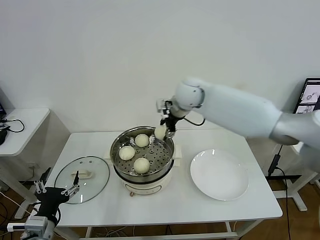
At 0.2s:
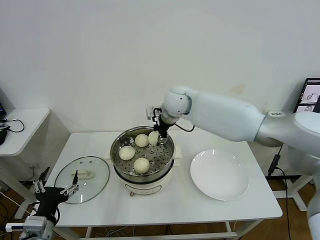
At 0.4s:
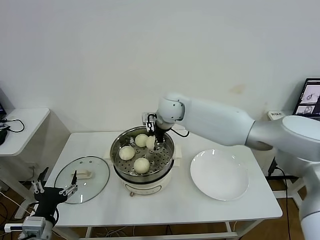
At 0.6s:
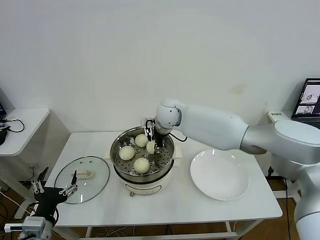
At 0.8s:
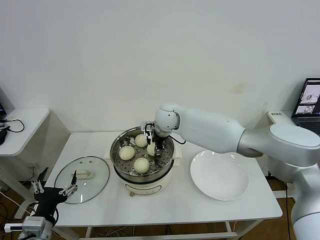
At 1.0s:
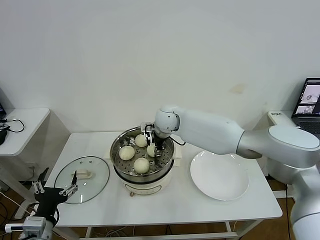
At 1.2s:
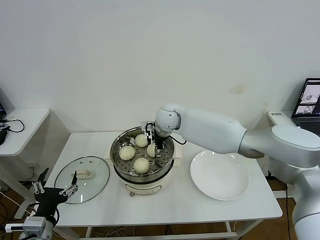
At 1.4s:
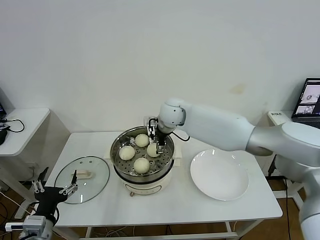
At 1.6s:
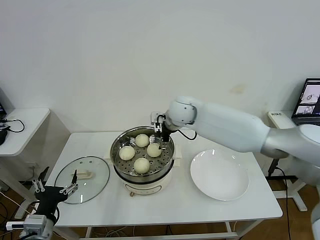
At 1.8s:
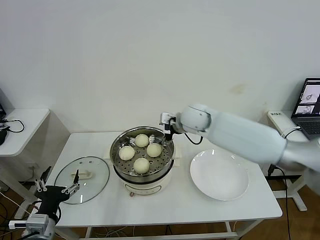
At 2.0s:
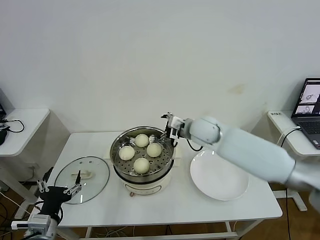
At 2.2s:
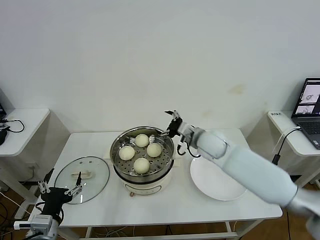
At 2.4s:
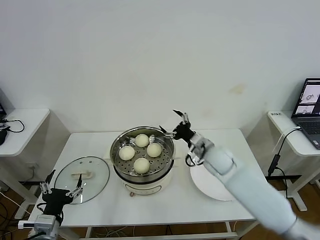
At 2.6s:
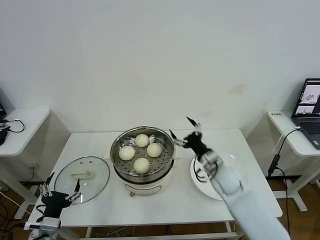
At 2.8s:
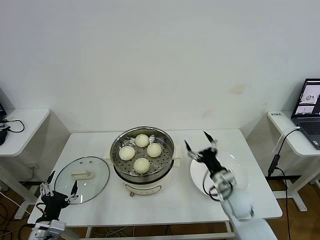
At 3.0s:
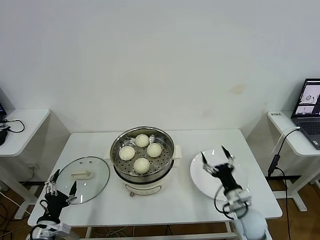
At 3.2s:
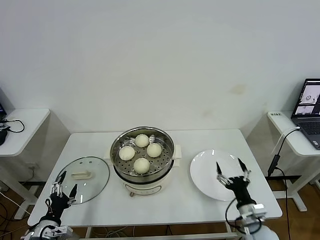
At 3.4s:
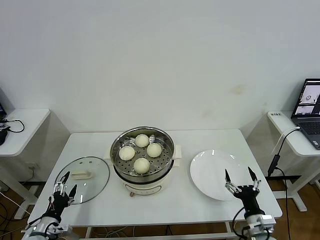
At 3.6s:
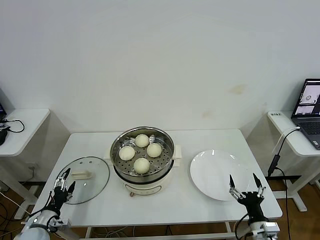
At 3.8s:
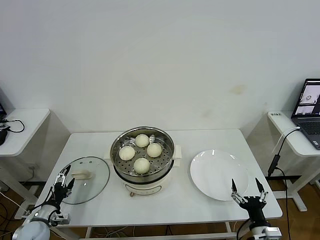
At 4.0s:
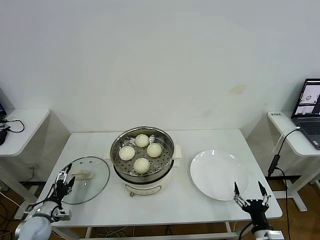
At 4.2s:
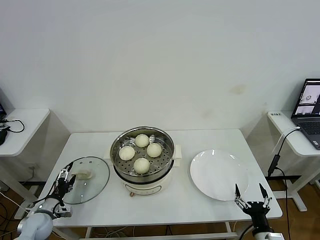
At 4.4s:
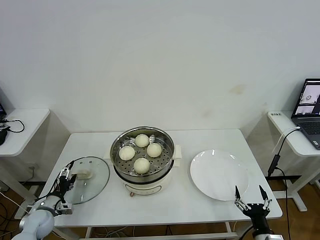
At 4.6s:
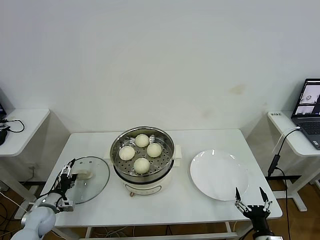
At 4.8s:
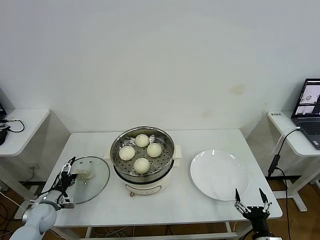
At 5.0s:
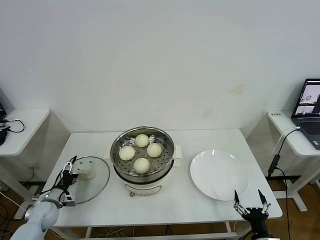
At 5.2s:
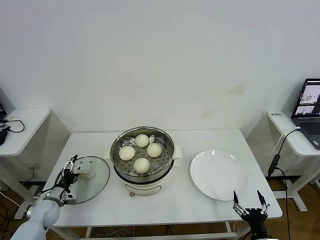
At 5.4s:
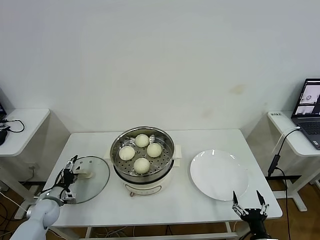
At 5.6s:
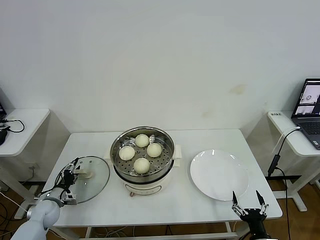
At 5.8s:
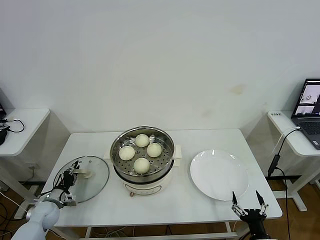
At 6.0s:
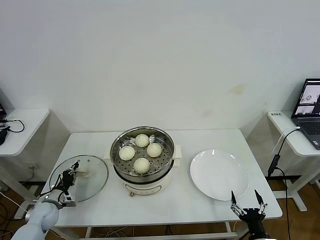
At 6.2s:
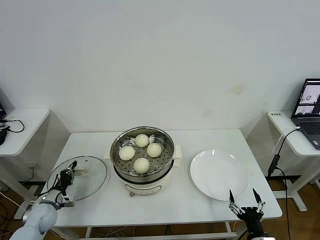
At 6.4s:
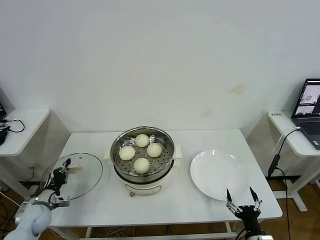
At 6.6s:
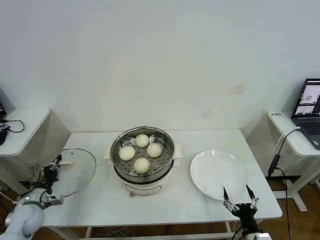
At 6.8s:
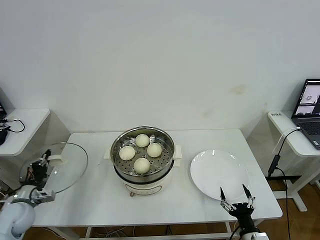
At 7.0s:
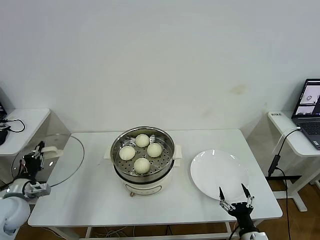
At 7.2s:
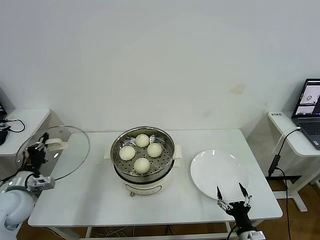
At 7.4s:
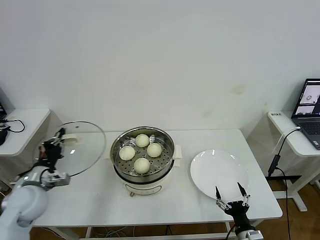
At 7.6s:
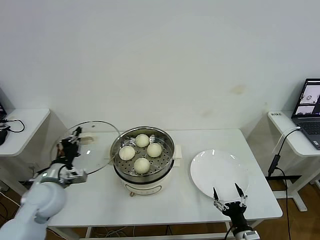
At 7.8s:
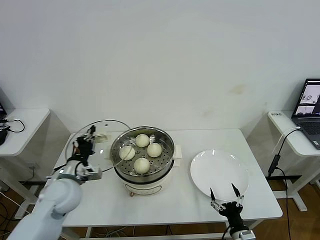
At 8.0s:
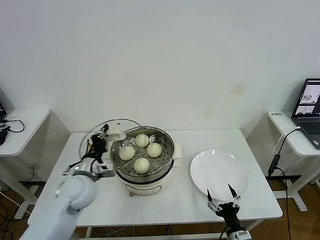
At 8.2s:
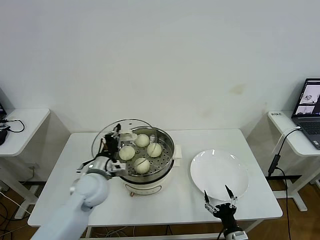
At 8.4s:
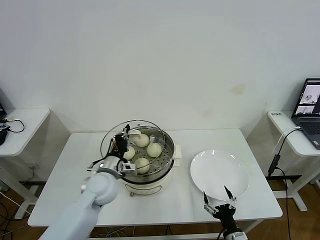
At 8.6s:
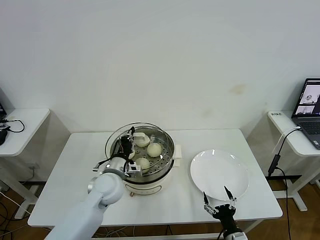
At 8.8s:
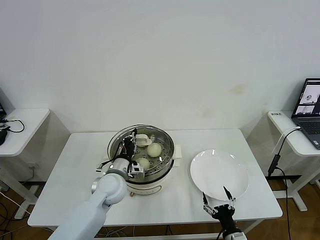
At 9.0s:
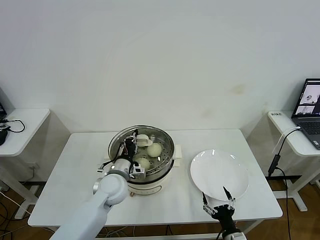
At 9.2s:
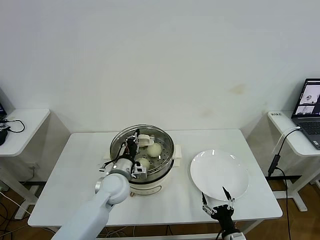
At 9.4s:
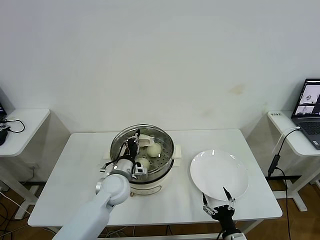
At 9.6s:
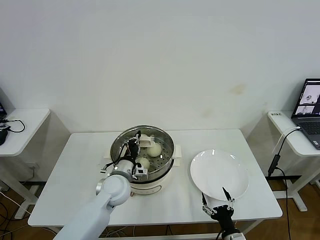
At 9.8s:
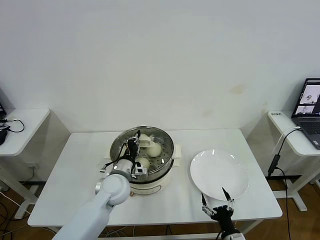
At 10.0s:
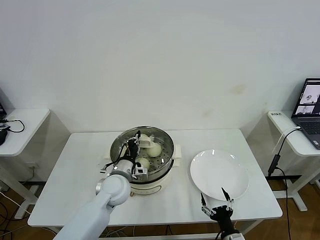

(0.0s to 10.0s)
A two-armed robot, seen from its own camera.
Task of the whole recording: take steamed baozi put them in steamer then cover it.
Step, 0.0s - 1.4s: Place the baozi on the steamer with right gripper.
Step, 1.6s - 6.2s: Grasp the pot lid with left gripper.
0.0s - 1.4s: The right gripper is displaced downward by about 5 cm, and opens up.
1.4s - 2.8s: The right gripper is displaced backward, downward and to the right by approximately 35 cm. The left gripper heads downward, covering some 5 cm.
2.8s - 4.2s: The left gripper travels forward, downward and to the left by some 20 cm. The right gripper goes some 20 cm backward and to the right.
4.2s - 5.8s: The left gripper heads forward, covering some 5 cm, and closes.
5.8s - 7.2s: The left gripper shifts some 20 cm upward, and closes.
7.2s - 8.6s: The left gripper is displaced to the right by roughly 25 cm.
8.6s - 10.0s: The grippers move only a little.

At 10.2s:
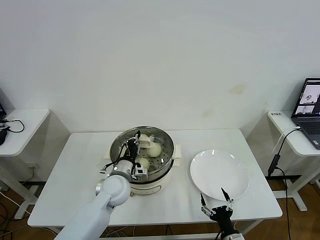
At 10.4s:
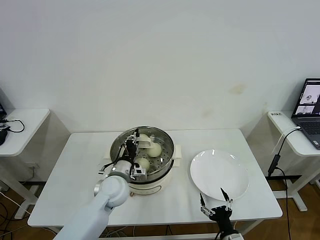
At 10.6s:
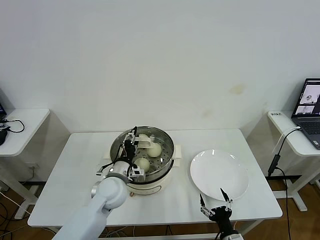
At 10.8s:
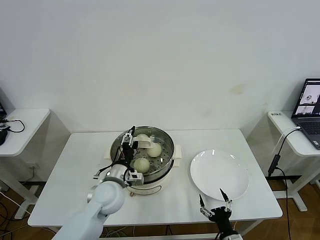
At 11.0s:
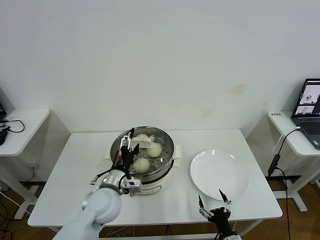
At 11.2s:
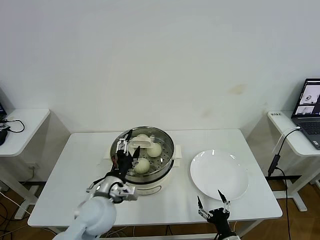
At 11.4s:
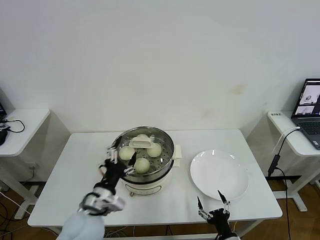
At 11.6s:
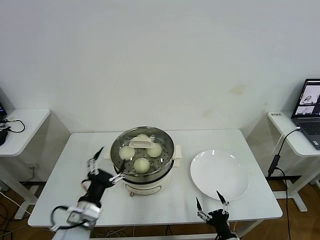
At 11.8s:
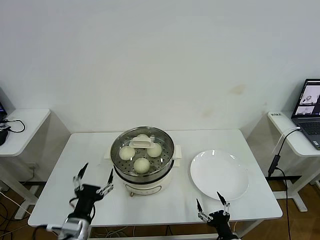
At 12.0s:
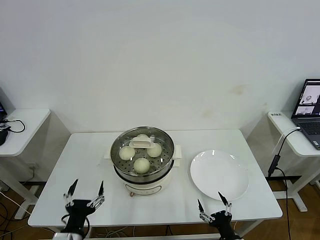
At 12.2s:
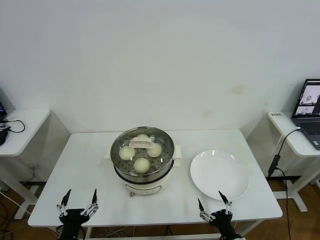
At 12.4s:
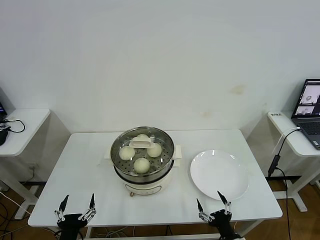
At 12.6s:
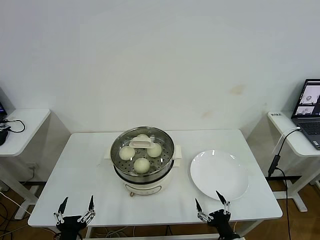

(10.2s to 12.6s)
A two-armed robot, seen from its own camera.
Task of the whole recording: take steamed baozi put them in steamer then cover it.
10.2s - 11.4s: The left gripper heads backward, covering about 10 cm, and opens up.
11.4s - 12.6s: The left gripper shifts roughly 20 cm backward, downward and to the left.

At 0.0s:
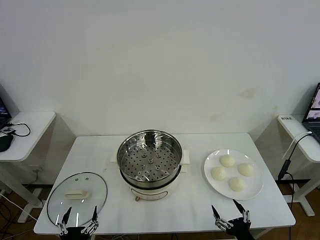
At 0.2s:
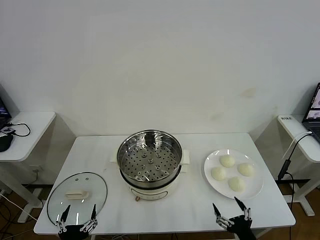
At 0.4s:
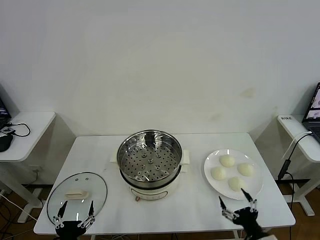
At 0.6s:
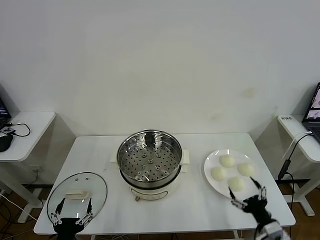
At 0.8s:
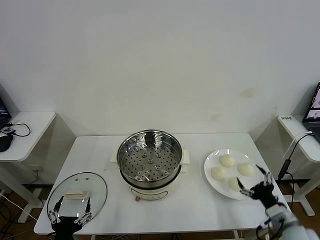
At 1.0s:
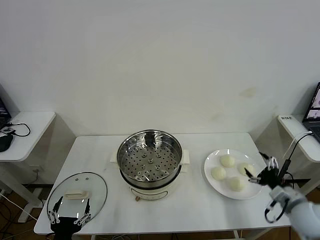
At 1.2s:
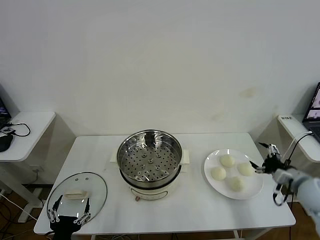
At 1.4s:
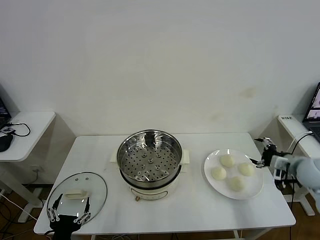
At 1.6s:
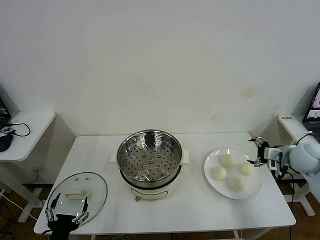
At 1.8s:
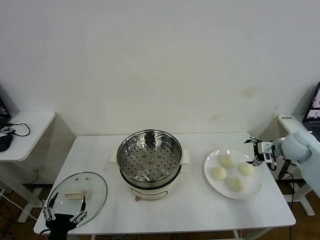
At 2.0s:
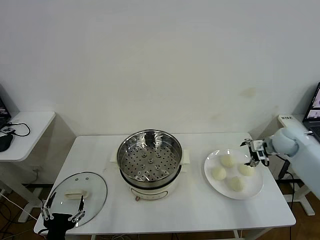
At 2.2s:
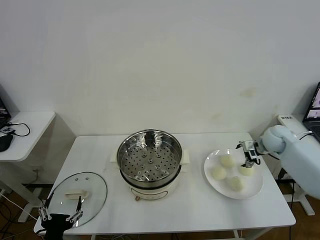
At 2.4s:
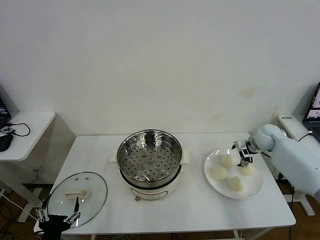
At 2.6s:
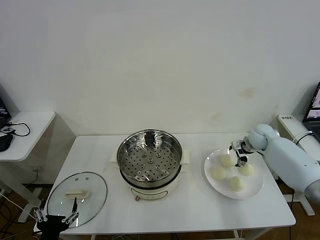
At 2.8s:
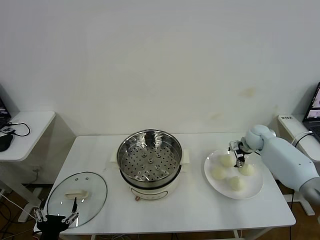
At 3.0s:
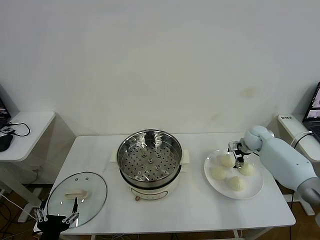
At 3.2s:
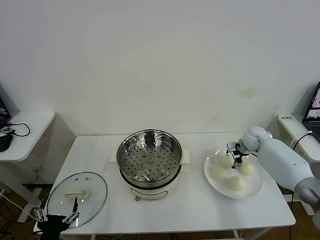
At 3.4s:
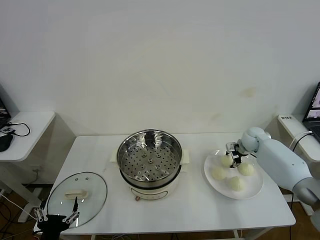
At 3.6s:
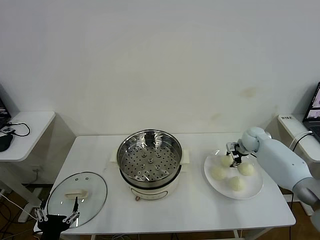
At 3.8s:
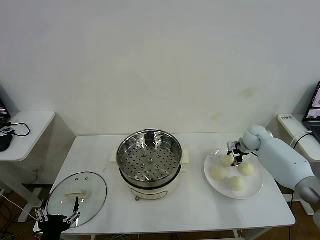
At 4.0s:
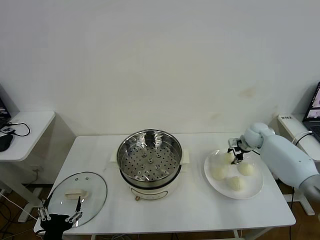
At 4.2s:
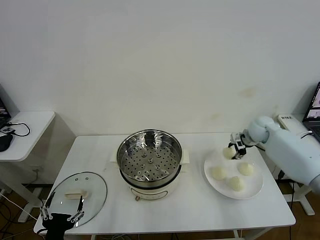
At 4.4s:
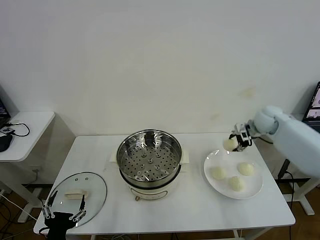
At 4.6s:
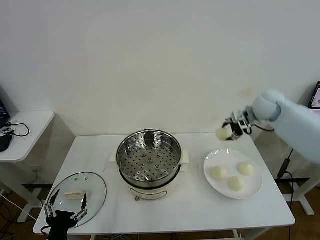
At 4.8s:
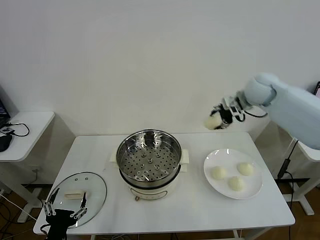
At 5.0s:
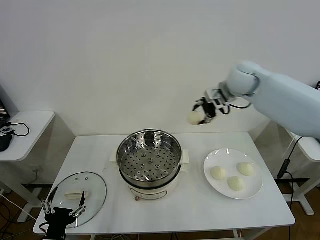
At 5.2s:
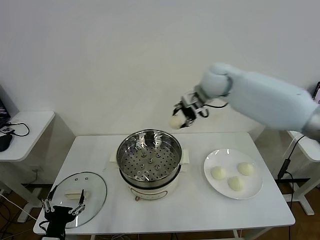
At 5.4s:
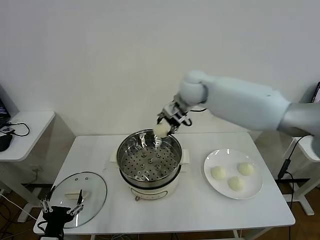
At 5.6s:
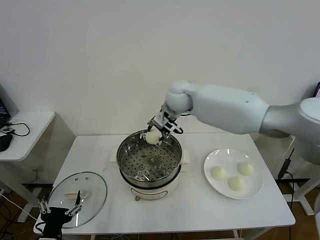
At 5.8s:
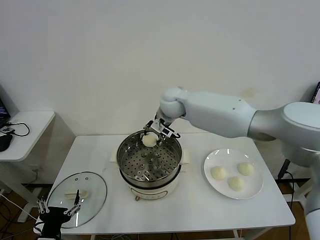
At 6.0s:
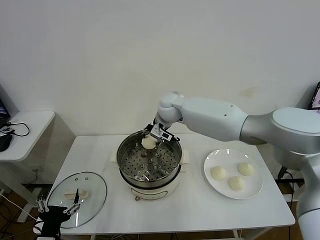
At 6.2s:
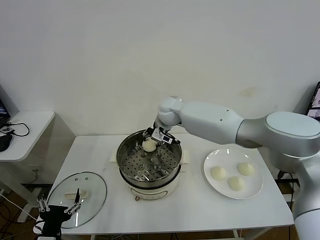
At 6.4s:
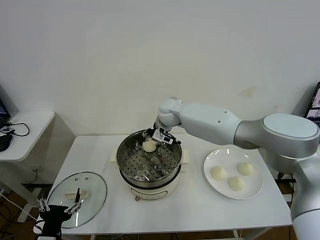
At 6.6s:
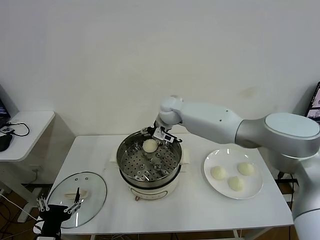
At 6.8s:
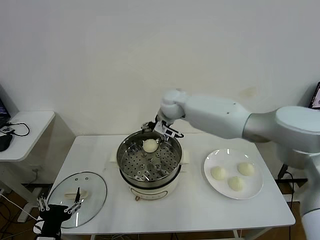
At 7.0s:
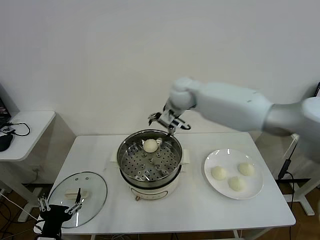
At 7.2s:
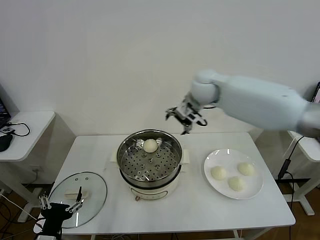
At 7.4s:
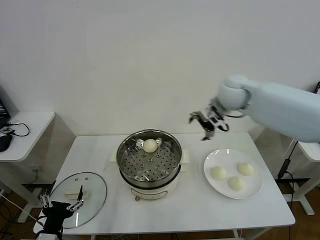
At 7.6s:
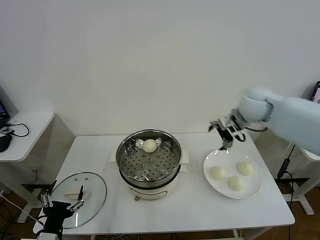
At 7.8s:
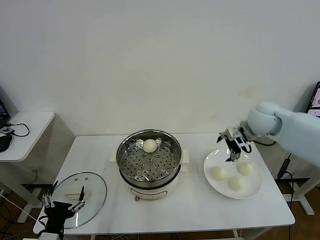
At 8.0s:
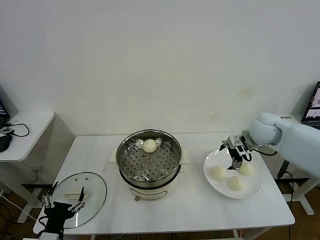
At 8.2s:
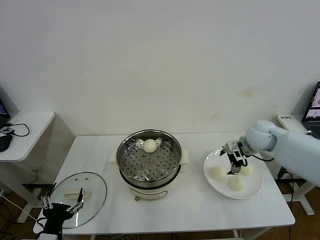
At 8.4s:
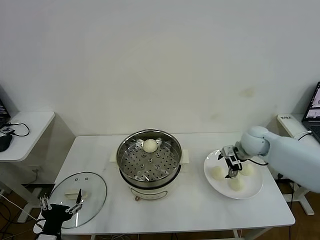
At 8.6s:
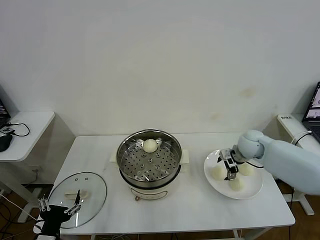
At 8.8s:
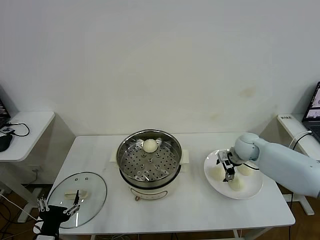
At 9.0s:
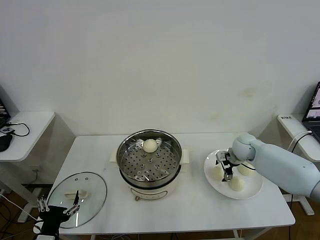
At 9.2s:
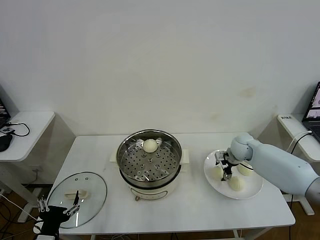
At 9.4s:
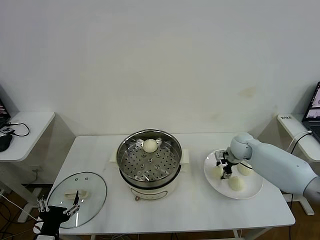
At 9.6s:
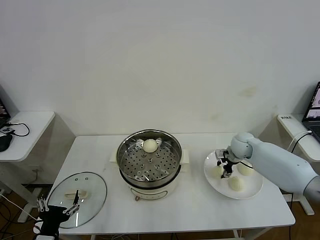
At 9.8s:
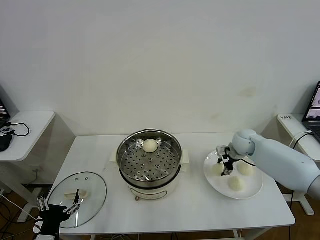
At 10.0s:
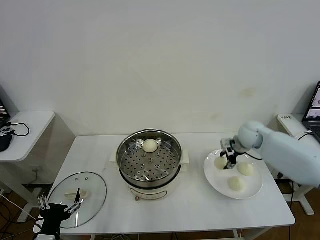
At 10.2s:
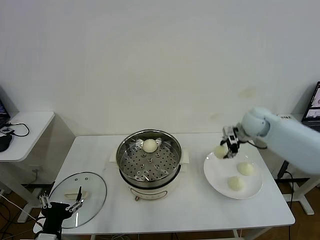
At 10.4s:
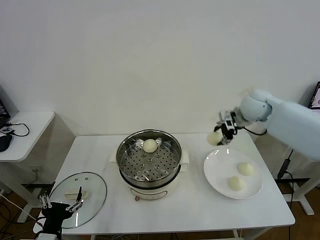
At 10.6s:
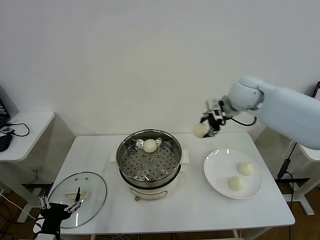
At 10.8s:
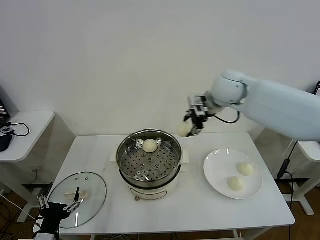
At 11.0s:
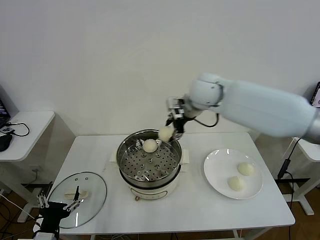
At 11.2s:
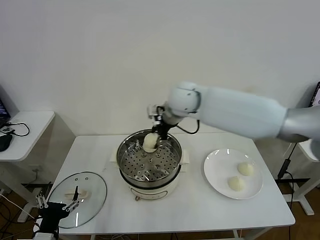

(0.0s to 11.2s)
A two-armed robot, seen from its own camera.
Task of the whole recording: take steamed baozi put them in steamer then cover it.
Step, 0.0s - 3.6s: Grasp the baozi in the plate with right gripper.
Step, 3.8s - 6.6s: Place the baozi on the steamer with right gripper.
Step, 6.8s - 9.6s: Grasp the baozi in the plate with right gripper.
1.6s - 3.2s: The right gripper moves forward, downward and to the left, about 15 cm, and closes up.
3.2s - 4.8s: The right gripper shifts about 30 cm upward and to the left, and closes its fingers.
4.8s - 6.4s: The right gripper heads to the left and downward, covering roughly 25 cm, and opens its fingers.
6.4s - 8.0s: The right gripper moves to the right, roughly 30 cm, and opens up.
8.0s - 9.6s: The right gripper heads downward, covering about 10 cm, and closes.
9.6s - 11.2s: The right gripper travels to the left and upward by some 35 cm.
